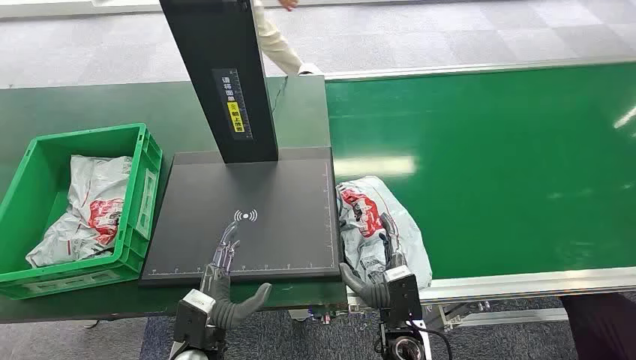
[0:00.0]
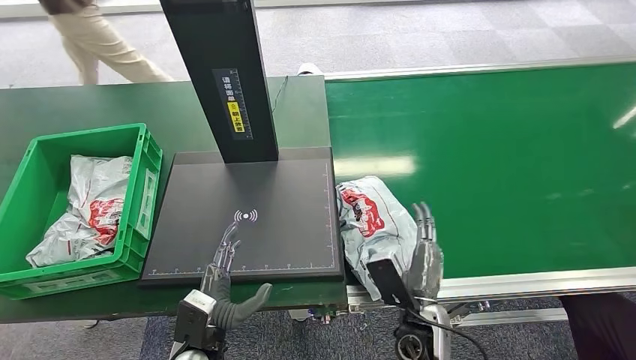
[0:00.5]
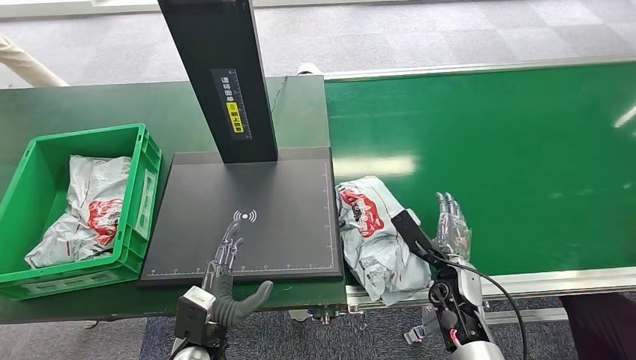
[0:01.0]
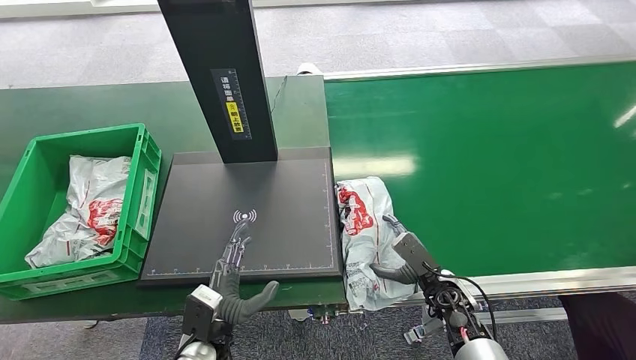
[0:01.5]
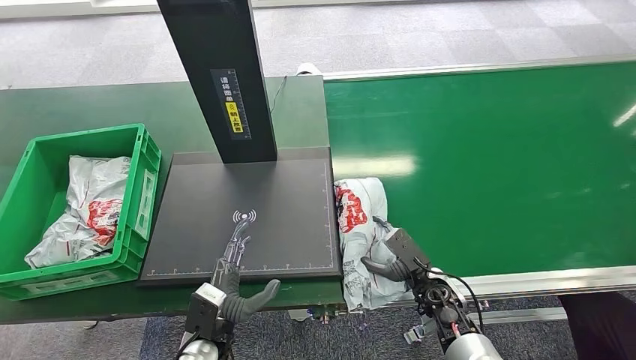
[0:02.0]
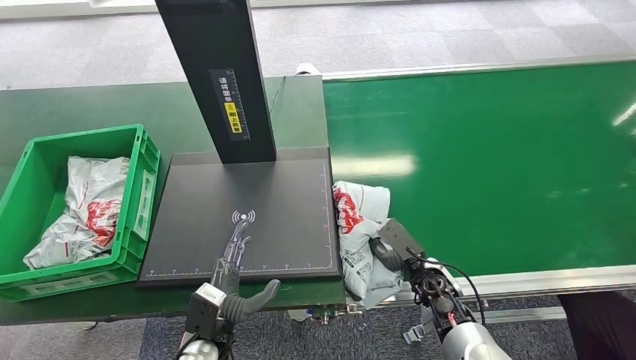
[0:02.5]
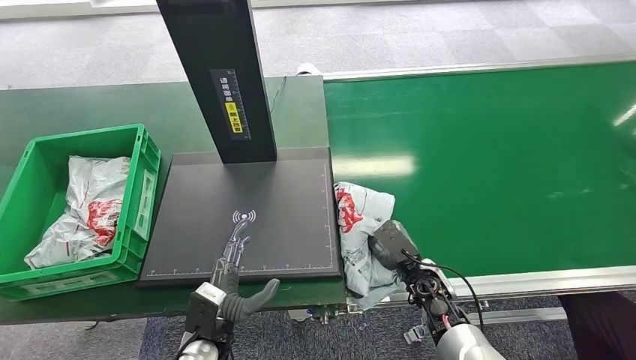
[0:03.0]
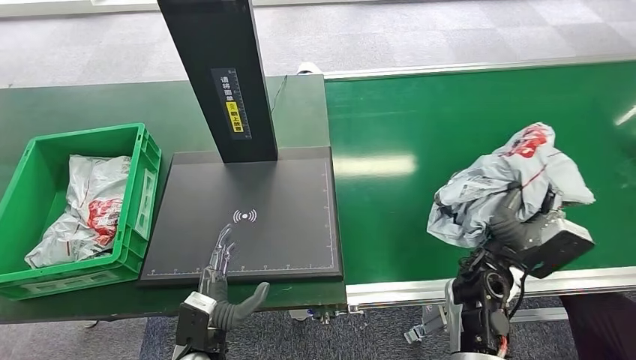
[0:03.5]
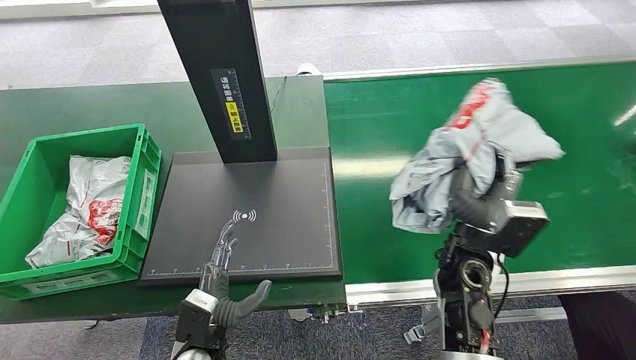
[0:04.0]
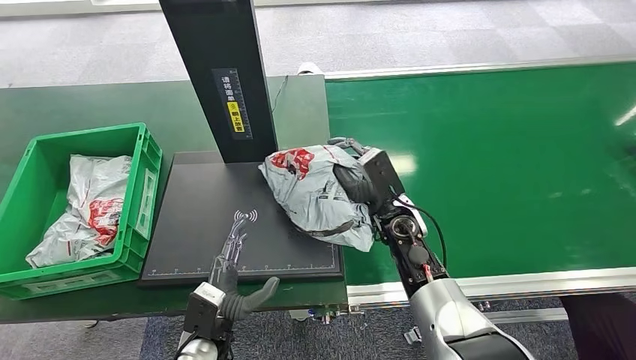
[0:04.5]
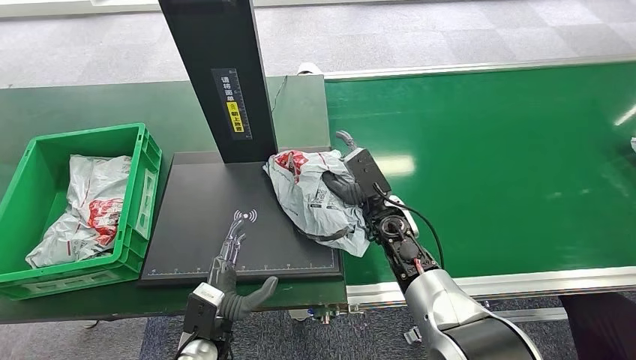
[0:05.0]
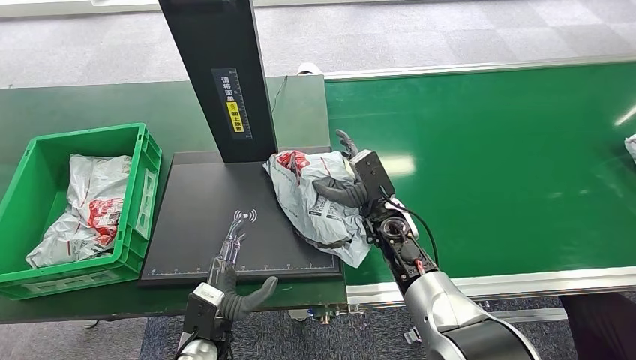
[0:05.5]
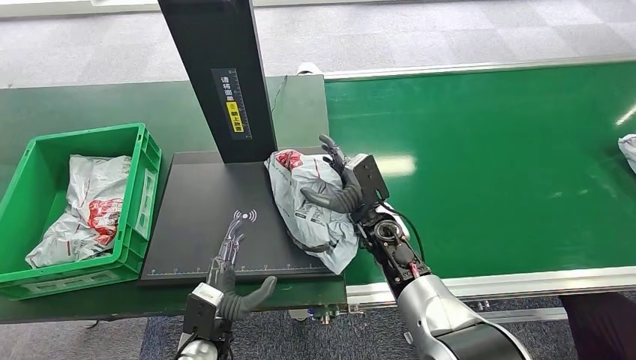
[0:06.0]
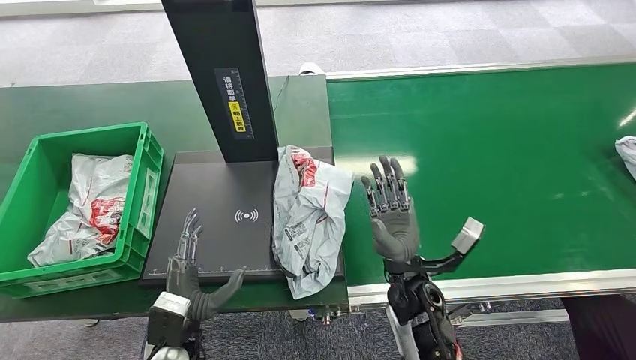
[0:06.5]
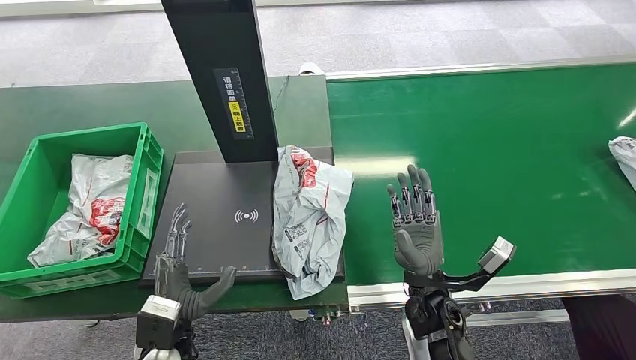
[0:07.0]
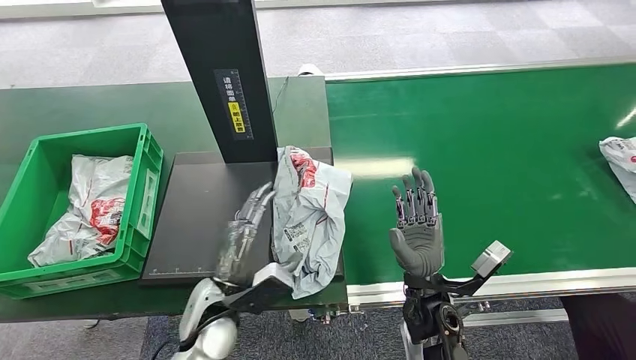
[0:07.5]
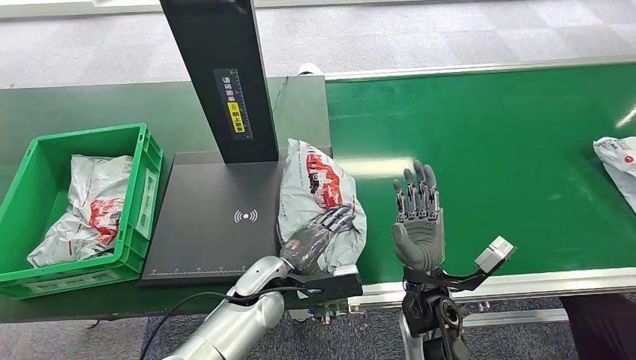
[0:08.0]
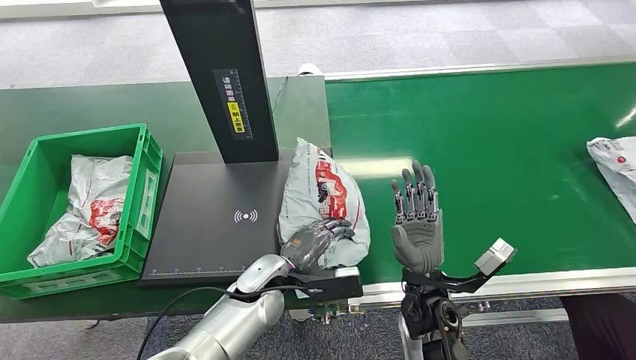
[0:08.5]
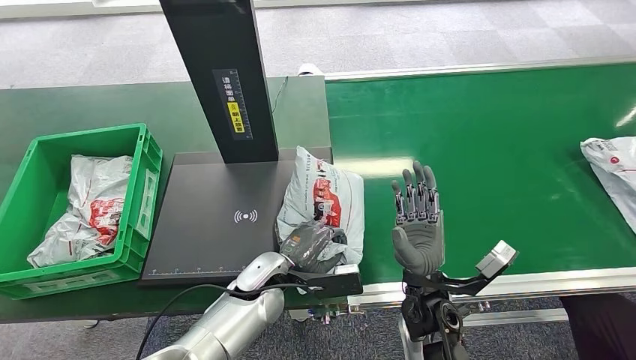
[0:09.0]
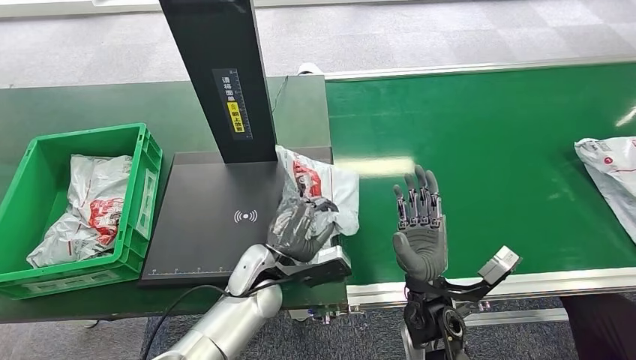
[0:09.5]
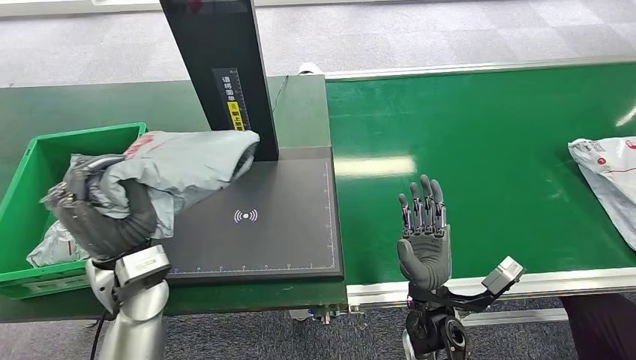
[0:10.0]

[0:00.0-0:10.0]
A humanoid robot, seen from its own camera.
Task of the whole recording: Weigh the package on the weighing device and place it in the left basket.
Step, 0:00.0 to 0:03.5: Pick up the package from the conveyor belt.
Step, 0:04.0 to 0:07.0: Place the package onto the inbound machine.
0:02.0 to 0:04.0: The right hand moves upward, approximately 15 cm.
0:04.0 to 0:06.0: The right hand moves to the left and forward, some 10 cm.
0:06.0 to 0:08.0: The left hand moves forward and to the right, approximately 10 cm, while the right hand travels backward by some 10 cm.

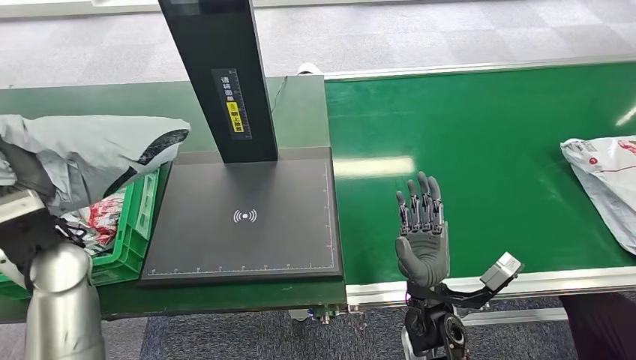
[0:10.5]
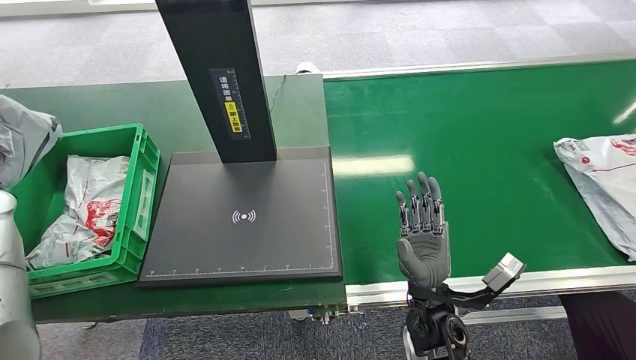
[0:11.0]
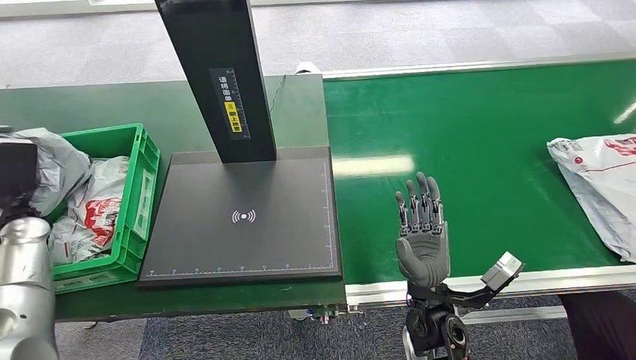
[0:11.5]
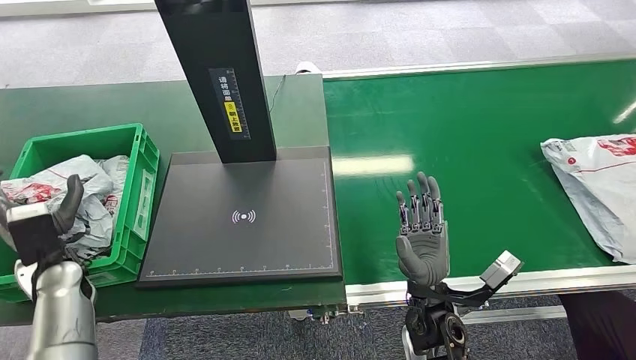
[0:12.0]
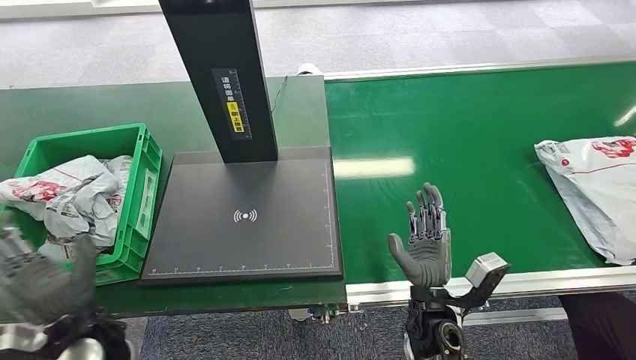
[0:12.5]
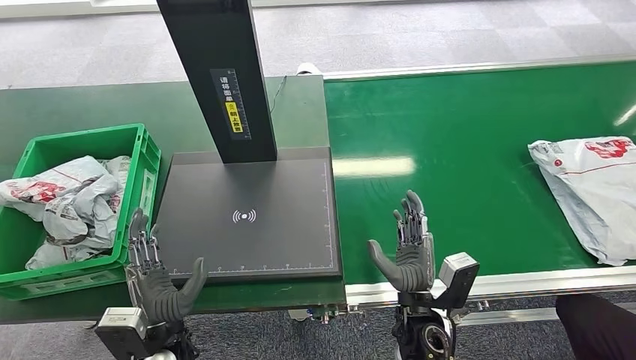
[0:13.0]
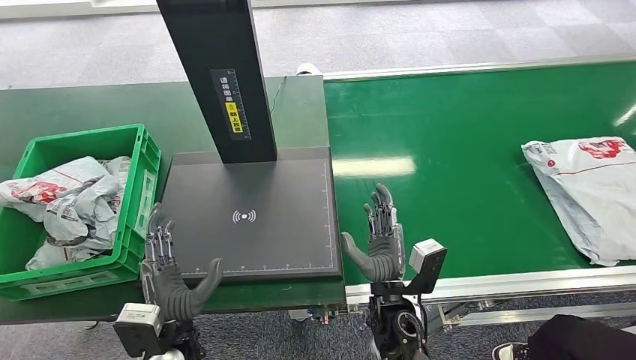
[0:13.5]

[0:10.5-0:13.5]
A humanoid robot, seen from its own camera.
Task of the whole recording: Weigh the package on the weighing device and place it in the left basket.
Step, 0:10.5 to 0:13.5: Place the package into the parcel locker.
0:10.5 to 0:12.0: The left hand is displaced downward and to the left by some 15 cm.
